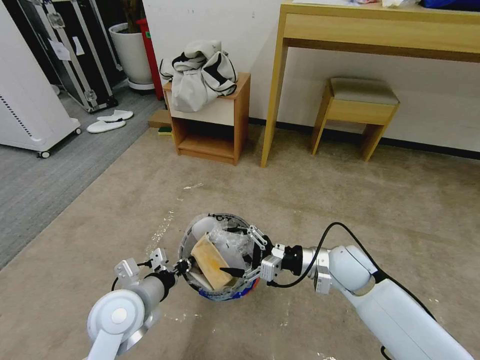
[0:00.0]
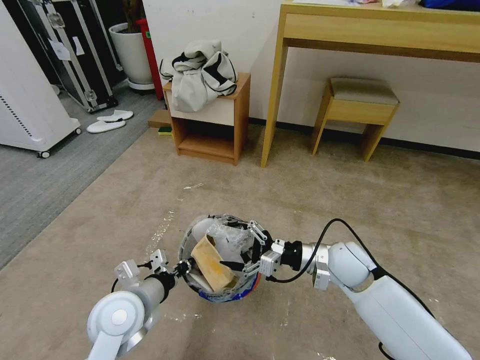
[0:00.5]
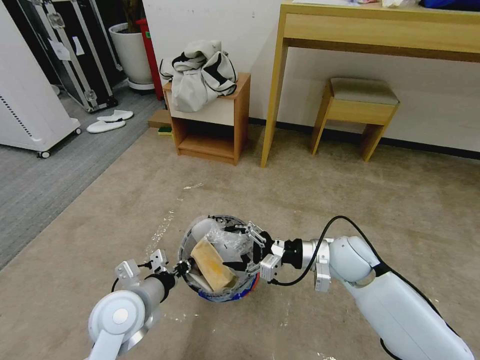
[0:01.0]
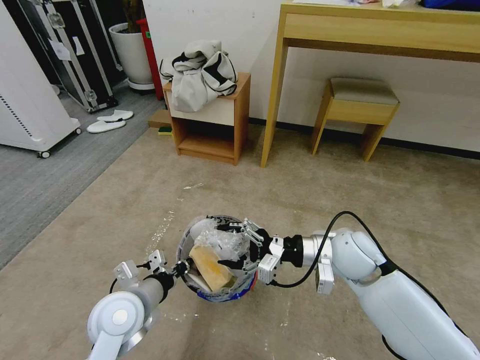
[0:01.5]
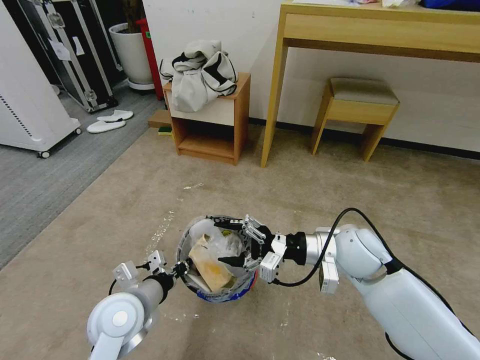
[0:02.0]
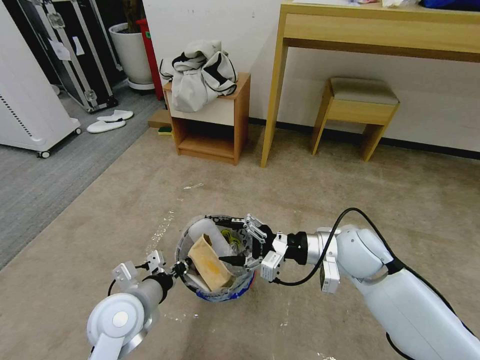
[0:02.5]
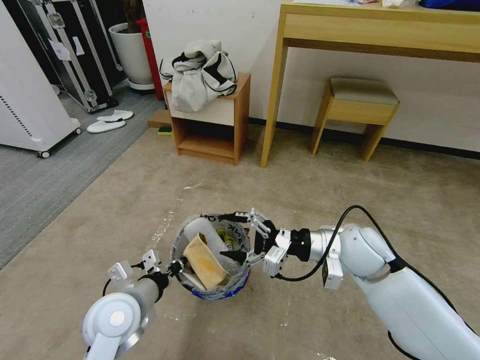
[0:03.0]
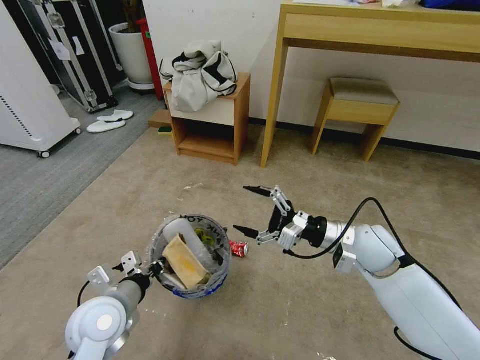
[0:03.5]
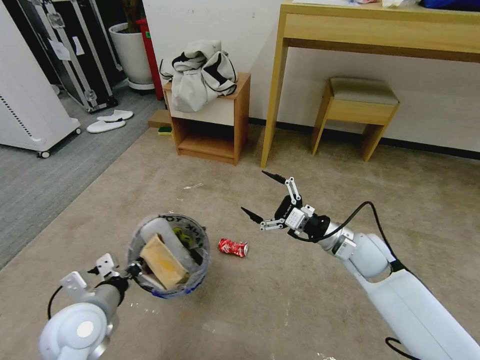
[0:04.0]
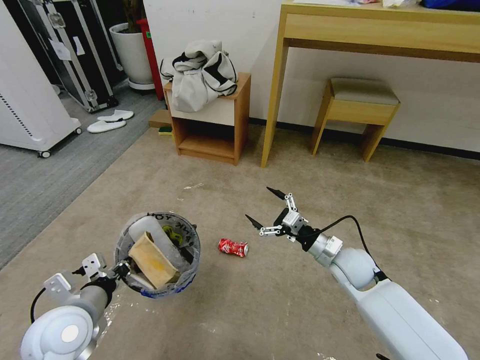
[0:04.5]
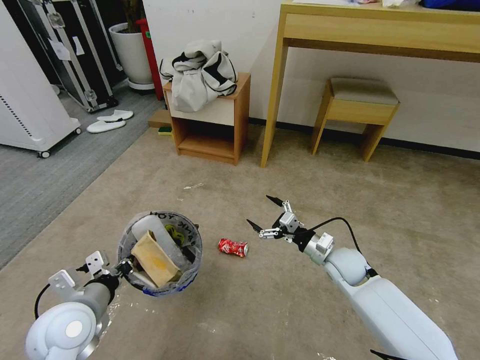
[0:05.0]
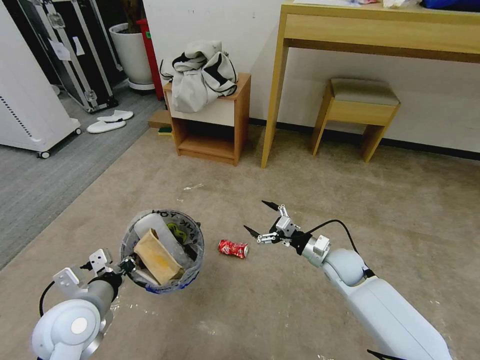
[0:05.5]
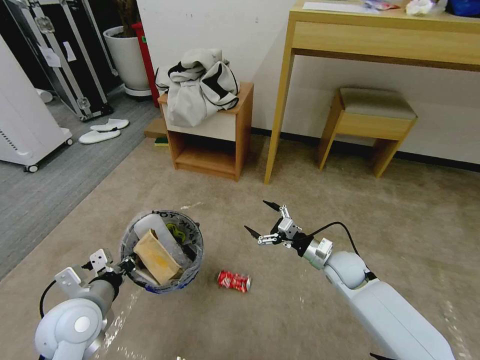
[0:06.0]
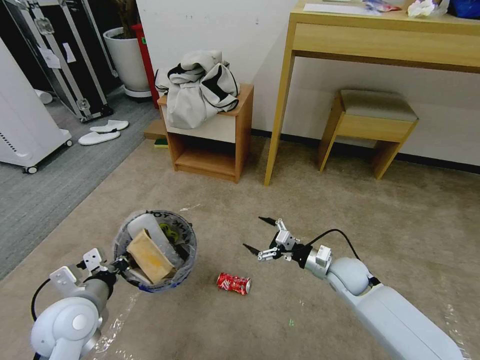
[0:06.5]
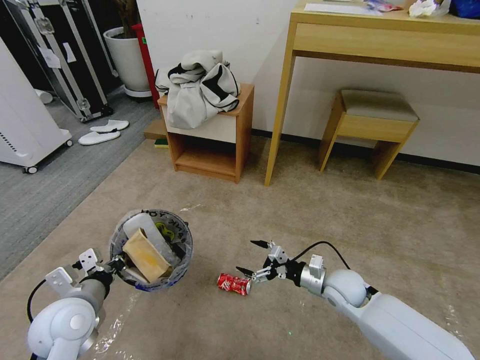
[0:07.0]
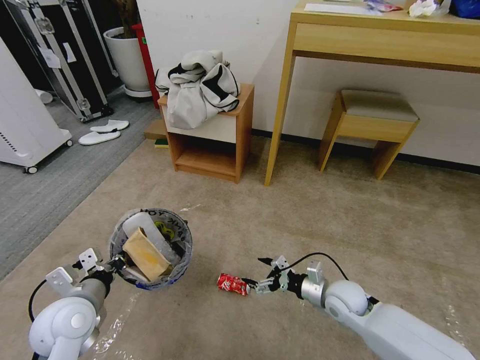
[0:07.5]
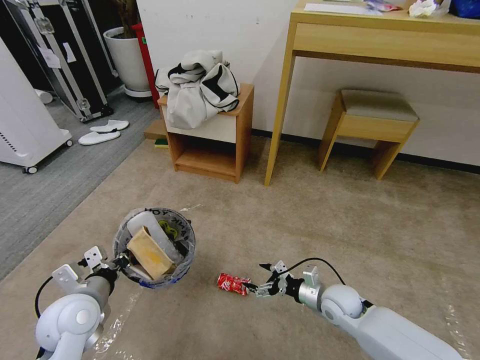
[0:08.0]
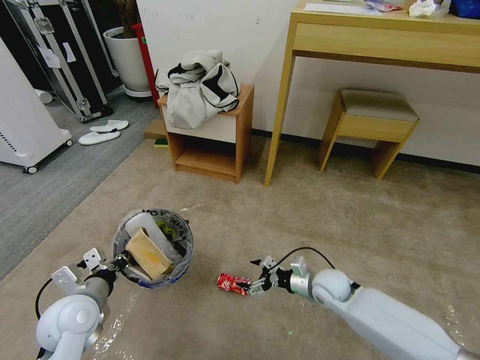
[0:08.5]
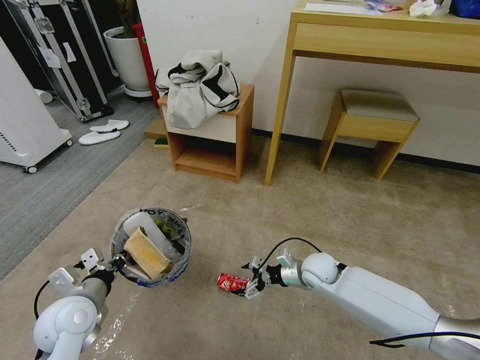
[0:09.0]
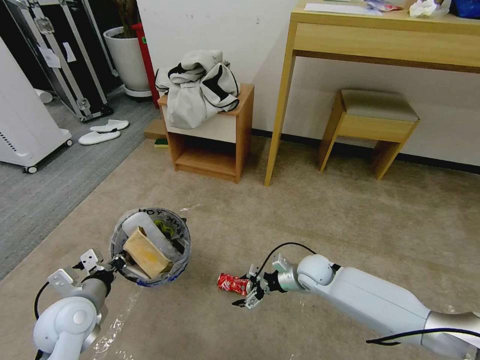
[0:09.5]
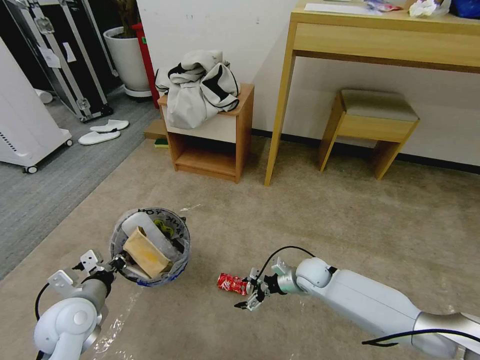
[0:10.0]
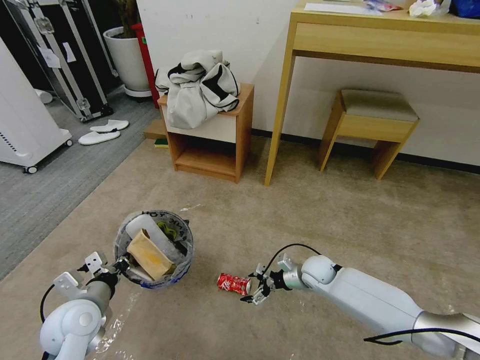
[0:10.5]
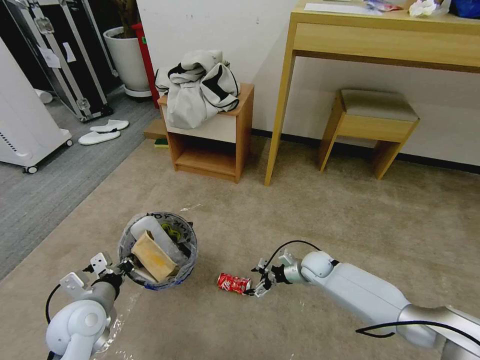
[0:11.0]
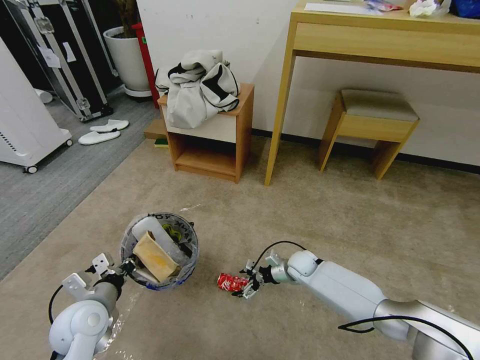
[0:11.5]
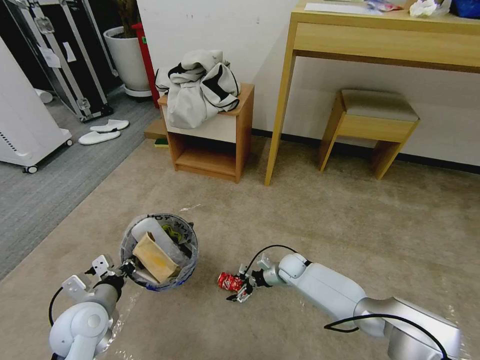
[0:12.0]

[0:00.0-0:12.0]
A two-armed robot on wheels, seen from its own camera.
Task of the whole recording: Pick up the trash bin and place the garbage on the floor into it.
0:00.0 to 0:02.0: The right gripper is displaced upward by about 5 cm.
0:02.0 to 0:04.0: The left gripper travels to the left by about 5 cm, while the right gripper changes place by roughly 5 cm.
0:04.0 to 0:06.0: The right gripper travels downward by roughly 10 cm.
0:06.0 to 0:08.0: The right gripper is displaced backward and downward by approximately 10 cm.
0:08.0 to 0:10.0: The right gripper heads forward, covering roughly 10 cm.
0:10.0 to 0:12.0: The right gripper heads downward and forward, covering about 10 cm.

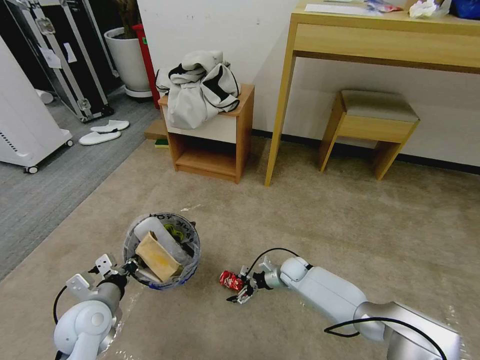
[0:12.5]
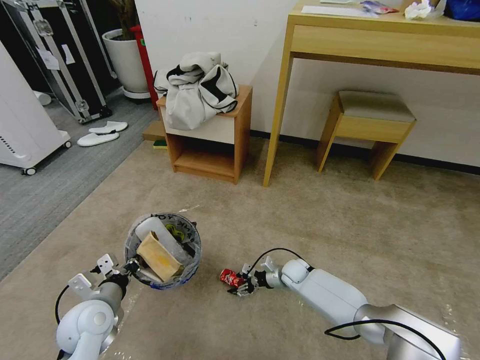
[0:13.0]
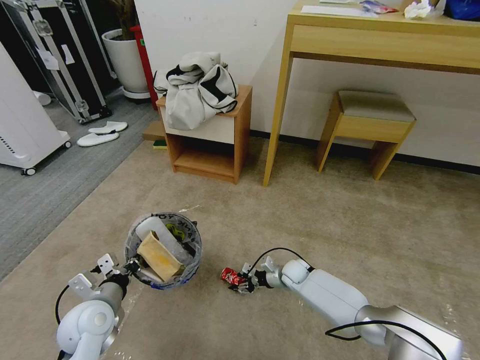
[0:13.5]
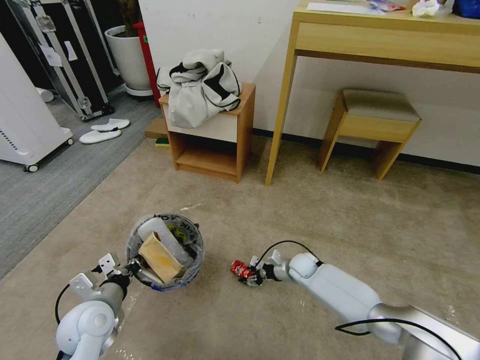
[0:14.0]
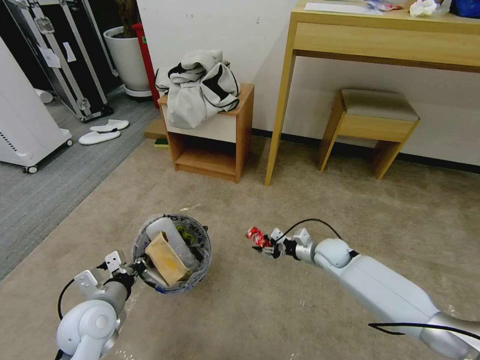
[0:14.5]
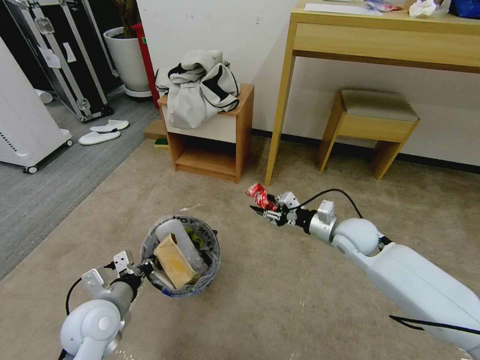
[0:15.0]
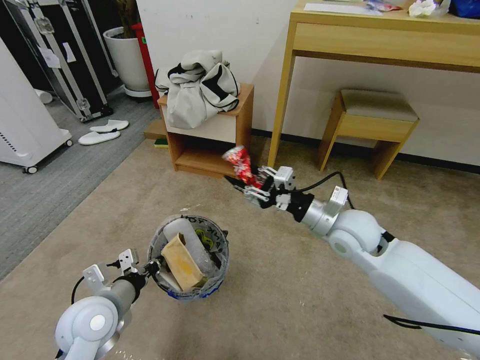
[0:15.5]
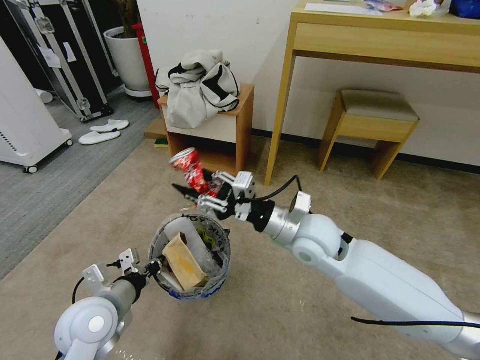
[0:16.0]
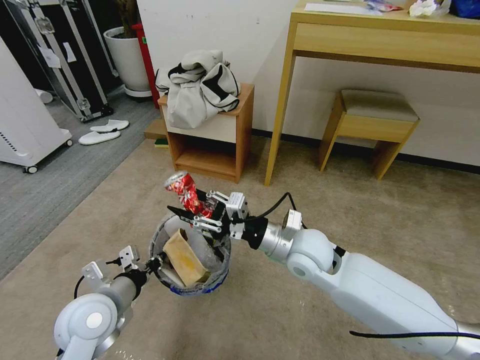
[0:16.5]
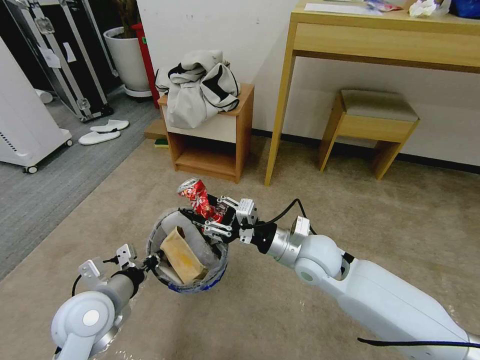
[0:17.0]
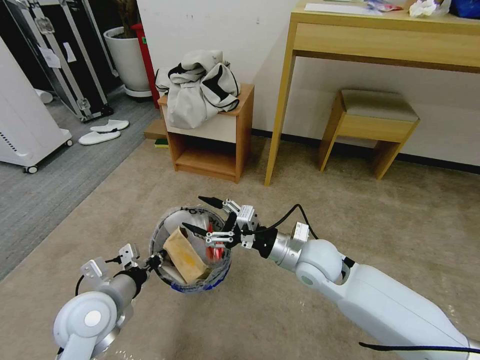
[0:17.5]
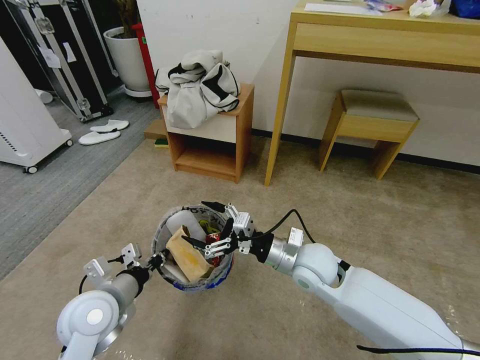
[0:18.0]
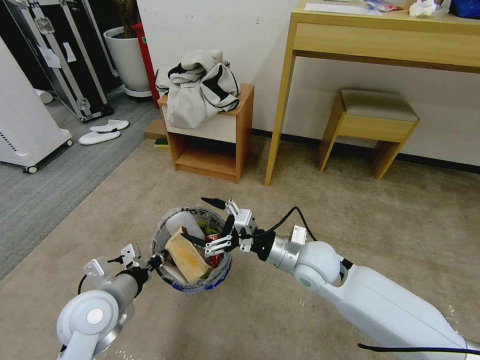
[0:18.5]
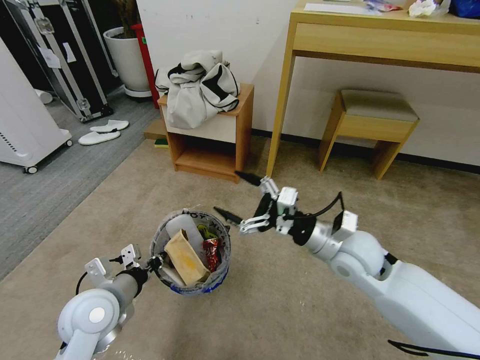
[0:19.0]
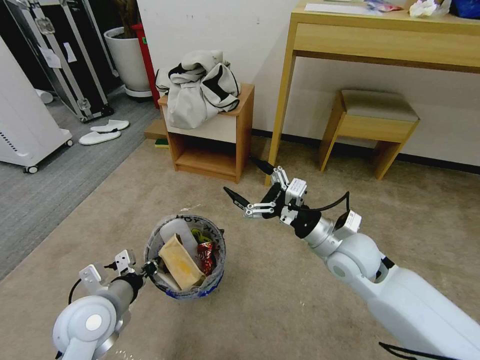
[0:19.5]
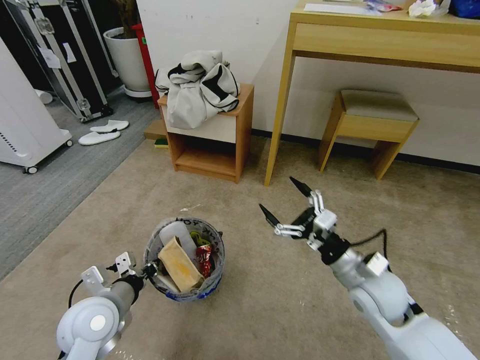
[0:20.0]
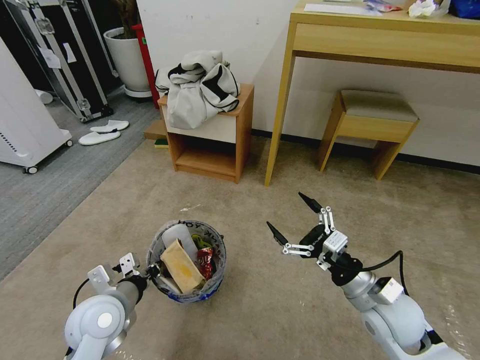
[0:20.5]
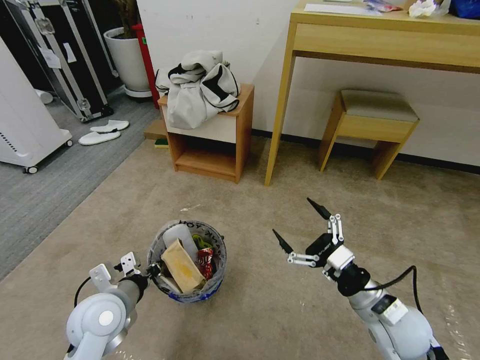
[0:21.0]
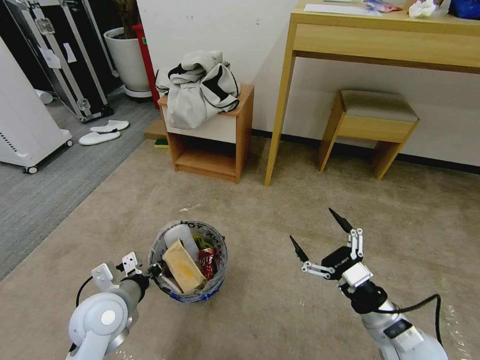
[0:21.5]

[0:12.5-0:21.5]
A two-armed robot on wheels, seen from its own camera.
Task of the whole recording: Pick up the trash bin and place the garbage on the floor into it.
0:12.5 to 0:14.5: The right gripper heads upward and to the right, covering some 15 cm, and closes its fingers.
0:14.5 to 0:17.0: The right gripper travels upward, to the left and backward by roughly 25 cm. Meanwhile the left gripper shifts about 5 cm upward.
0:17.0 to 0:19.5: The right gripper travels to the right by approximately 5 cm, and opens.
0:19.5 to 0:21.5: The right gripper travels backward, downward and to the right by about 20 cm.

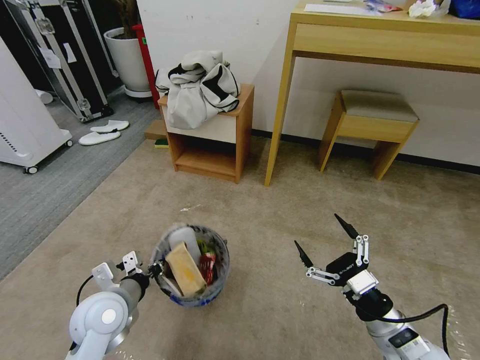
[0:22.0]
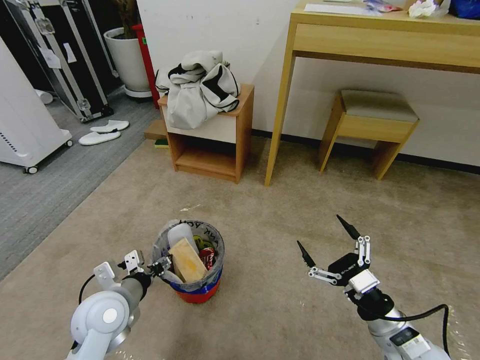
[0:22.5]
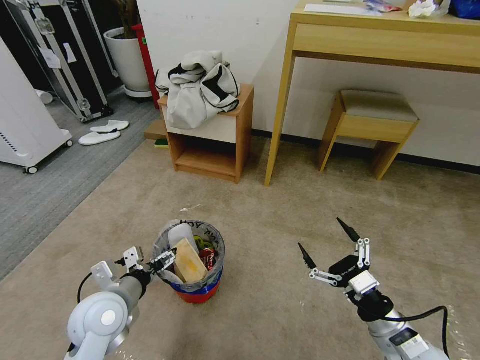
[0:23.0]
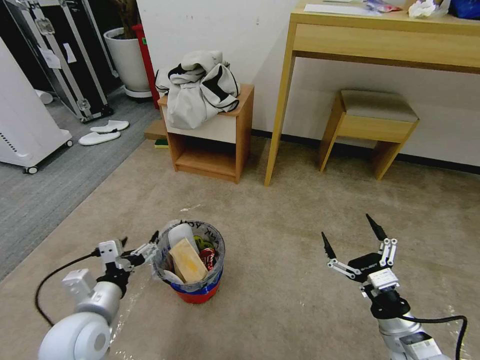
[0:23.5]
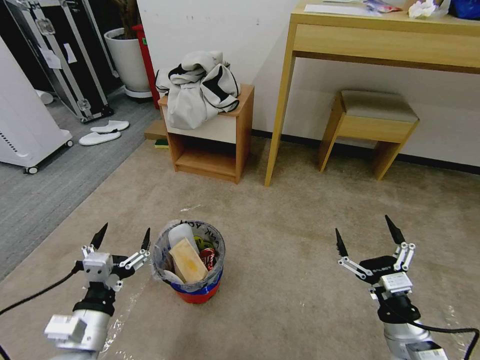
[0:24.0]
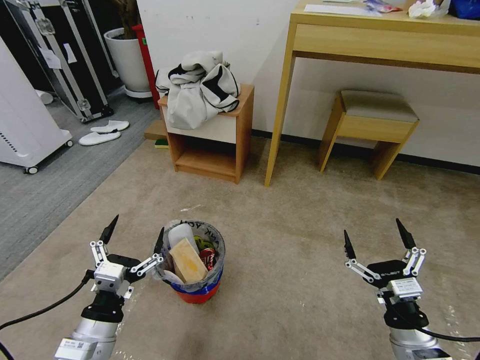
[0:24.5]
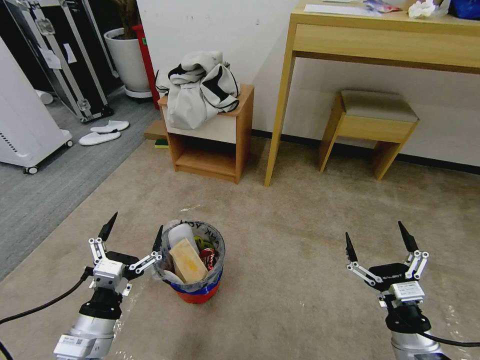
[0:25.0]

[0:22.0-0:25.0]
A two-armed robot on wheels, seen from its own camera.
Task of the whole recording: Pick up the trash bin and place the garbage on the floor into it.
0:22.0 to 0:23.5: The left gripper opens.
0:23.5 to 0:25.0: The left gripper travels backward by about 5 cm.
